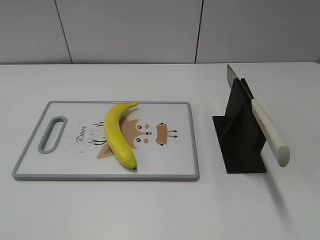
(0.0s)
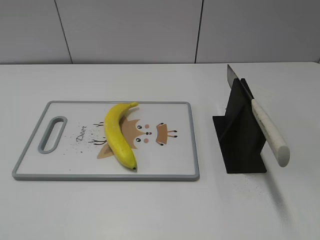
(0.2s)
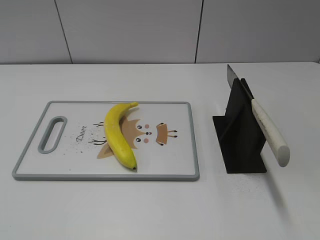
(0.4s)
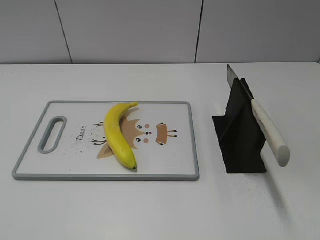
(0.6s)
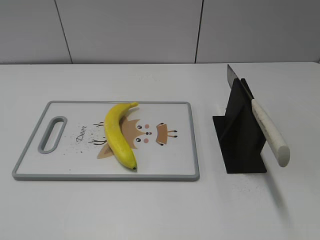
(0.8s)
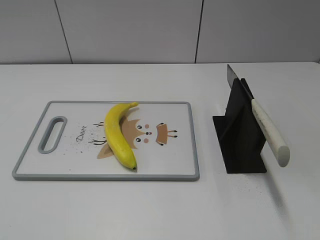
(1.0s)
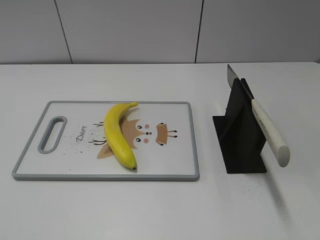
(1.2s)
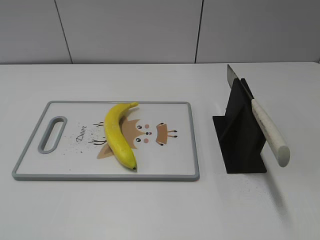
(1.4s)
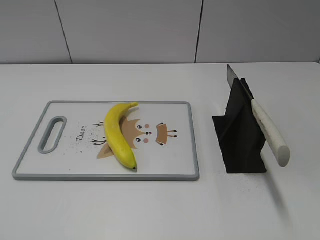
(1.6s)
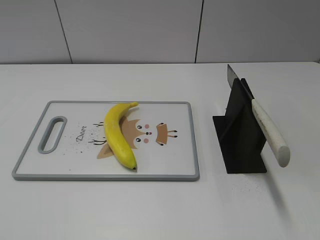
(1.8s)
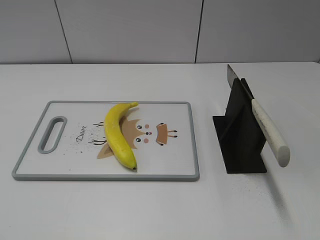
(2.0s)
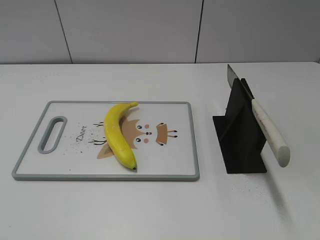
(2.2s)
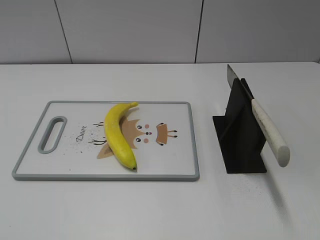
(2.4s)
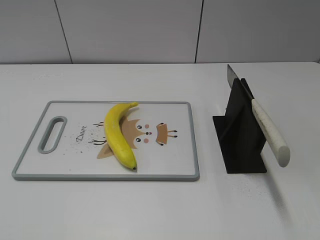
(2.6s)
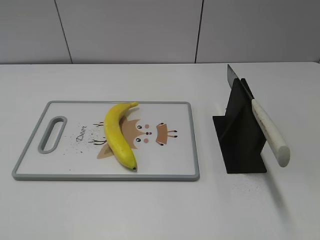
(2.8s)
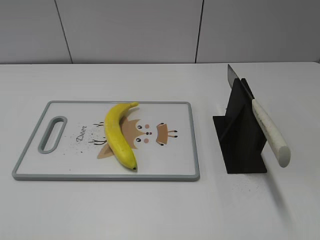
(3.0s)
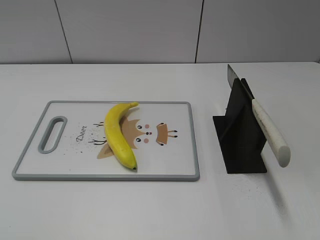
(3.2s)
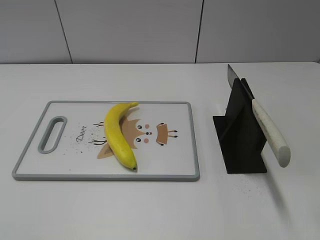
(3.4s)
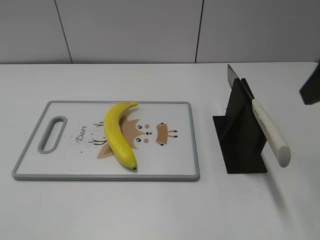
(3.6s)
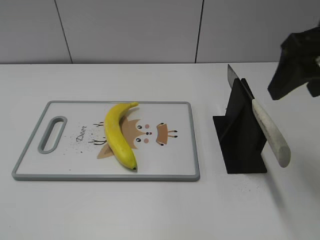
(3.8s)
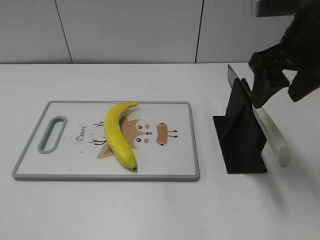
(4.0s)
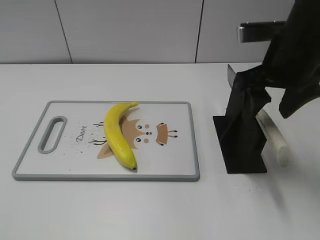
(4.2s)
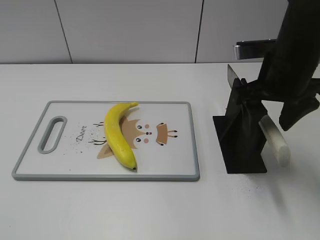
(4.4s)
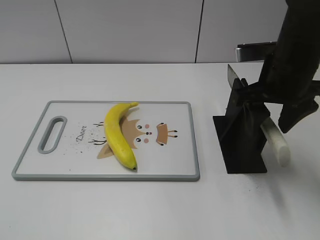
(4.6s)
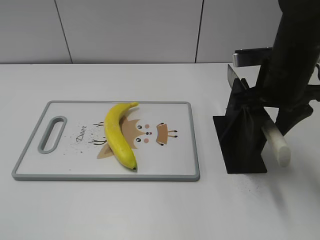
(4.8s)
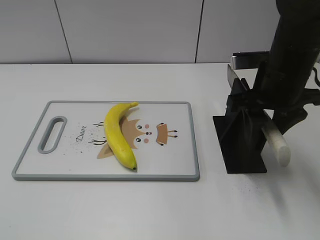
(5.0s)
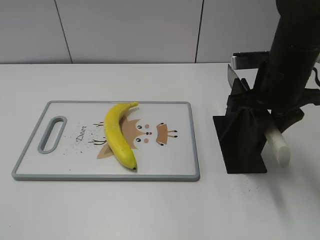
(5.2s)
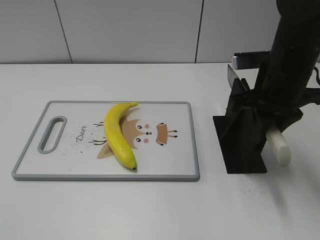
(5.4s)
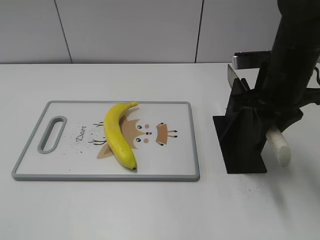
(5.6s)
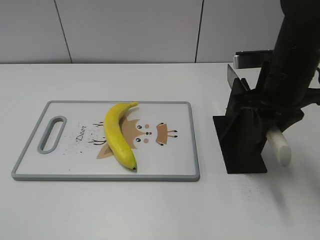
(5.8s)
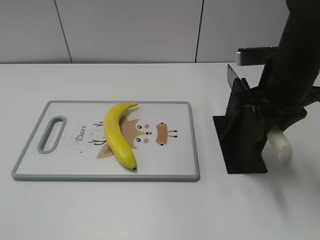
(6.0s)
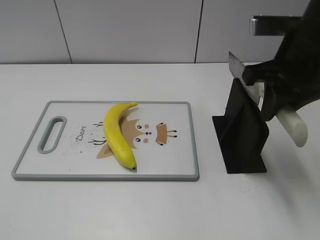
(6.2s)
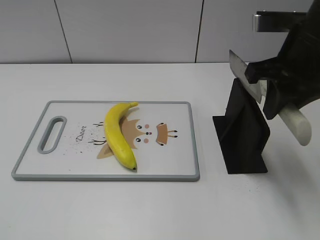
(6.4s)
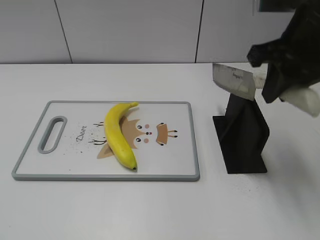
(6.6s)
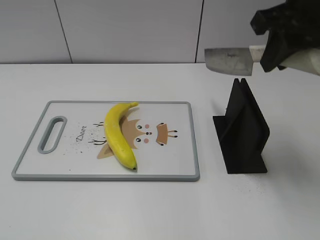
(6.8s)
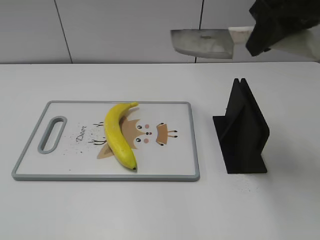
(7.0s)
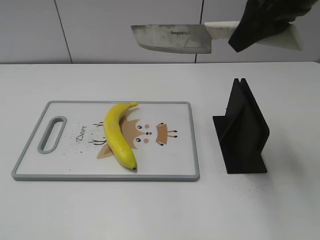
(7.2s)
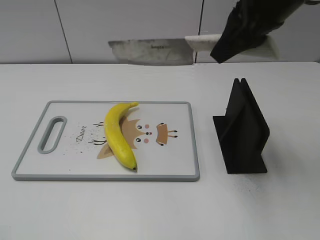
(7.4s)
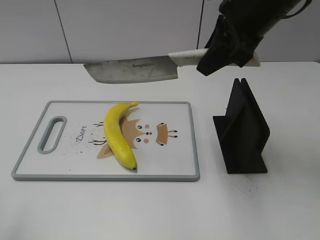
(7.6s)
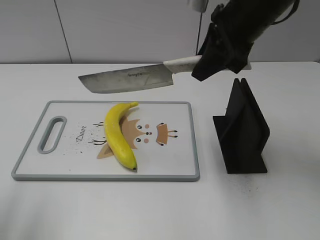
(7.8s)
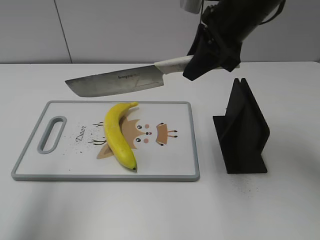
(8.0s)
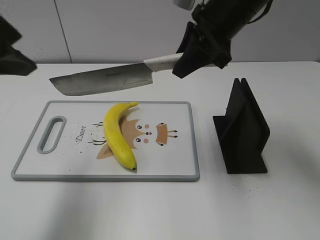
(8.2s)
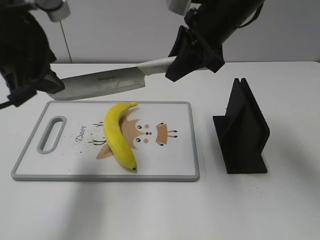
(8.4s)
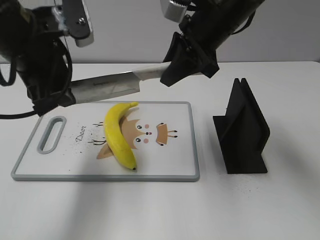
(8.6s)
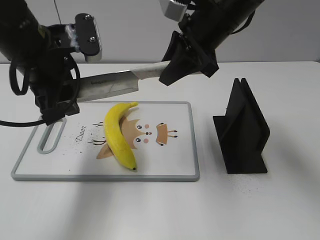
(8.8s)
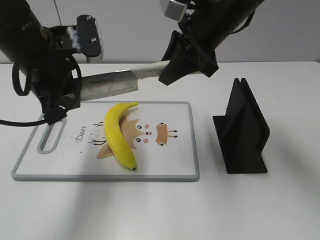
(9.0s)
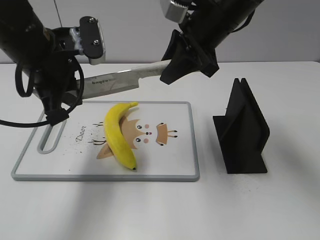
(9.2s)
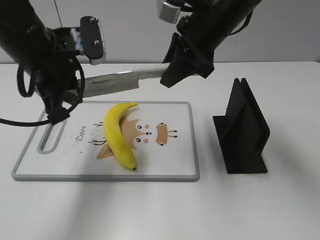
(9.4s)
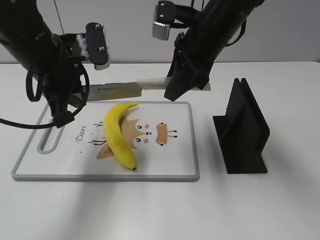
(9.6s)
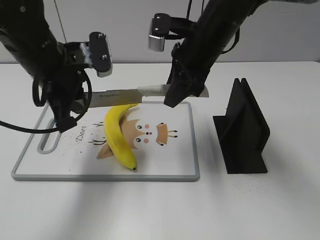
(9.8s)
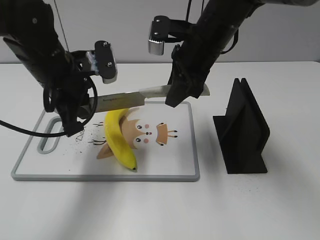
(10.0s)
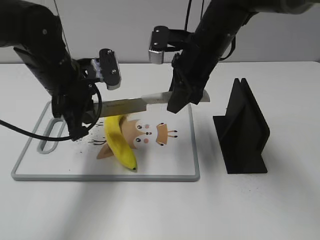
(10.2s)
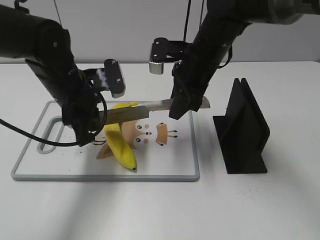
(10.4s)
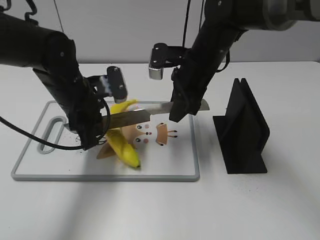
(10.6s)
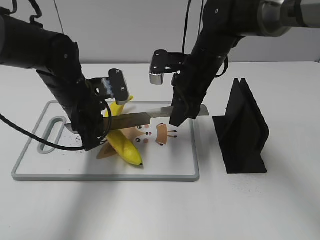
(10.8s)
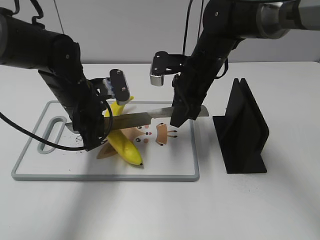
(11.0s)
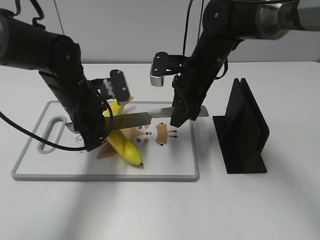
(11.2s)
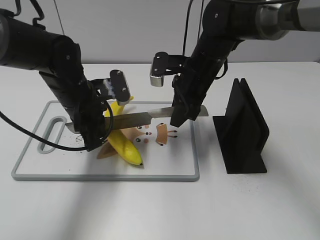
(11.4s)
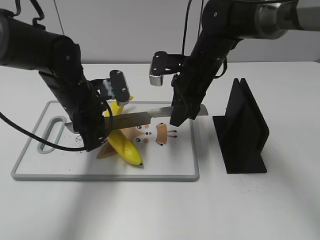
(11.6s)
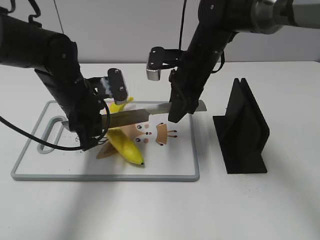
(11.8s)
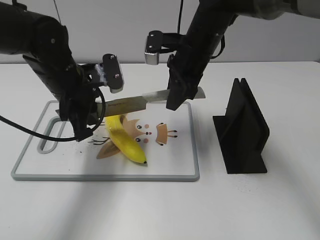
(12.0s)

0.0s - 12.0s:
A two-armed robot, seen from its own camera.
Task of the whole recording: cut plastic banana.
Step, 0.0s - 6.6s: Grab the knife handle with your right hand.
Step, 6.8s - 11.2s: Lift the knife with your right hand.
3.0s - 4.4s: The right gripper is displaced forward, downward and to the left by approximately 25 cm.
4.4s - 6.0s: The right gripper closes its fingers.
6.0s - 7.6s: The left gripper travels forward and upward by roughly 10 cm. The right gripper heads upward, covering about 10 cm.
7.6s - 9.0s: The right gripper moves approximately 10 cm. Meanwhile the left gripper is displaced forward and to the right by about 25 cm, and closes up.
9.0s - 10.4s: Both grippers travel together downward, about 10 cm. The left gripper closes up.
10.4s - 12.0s: The grippers move only a little.

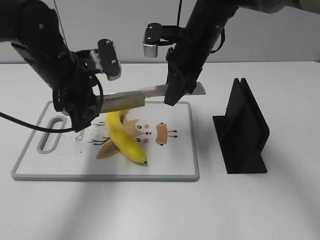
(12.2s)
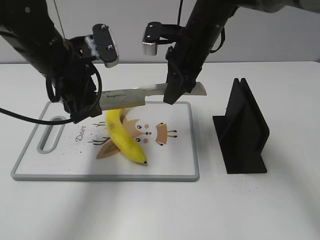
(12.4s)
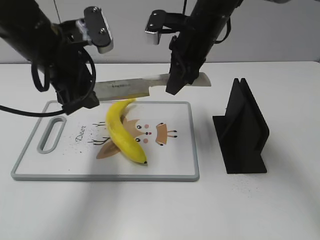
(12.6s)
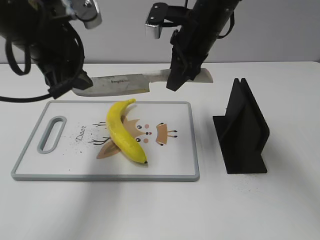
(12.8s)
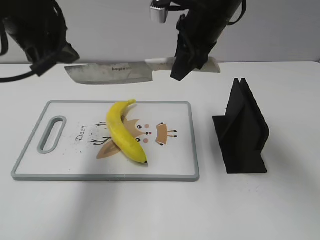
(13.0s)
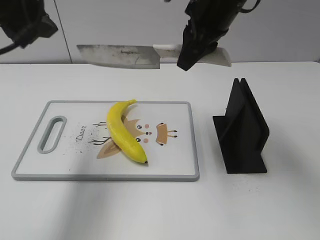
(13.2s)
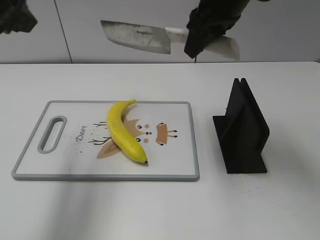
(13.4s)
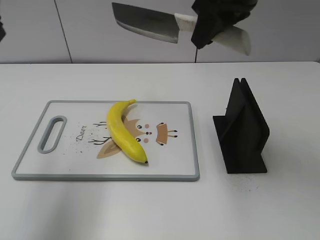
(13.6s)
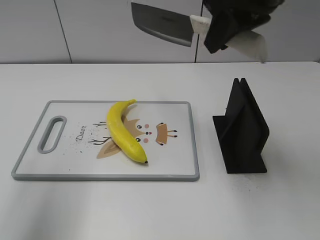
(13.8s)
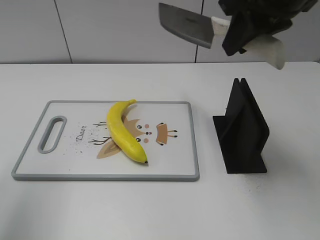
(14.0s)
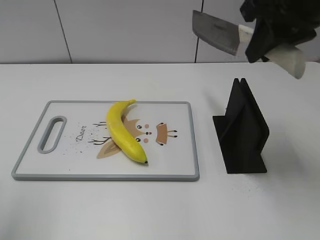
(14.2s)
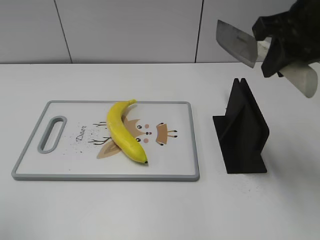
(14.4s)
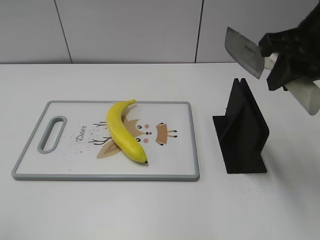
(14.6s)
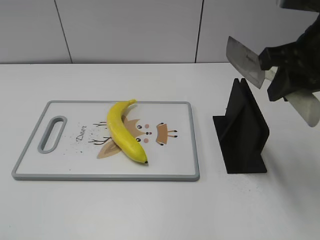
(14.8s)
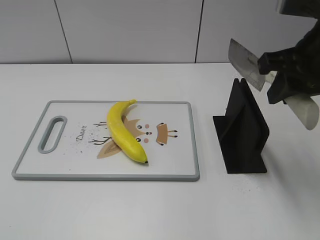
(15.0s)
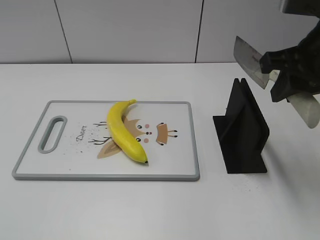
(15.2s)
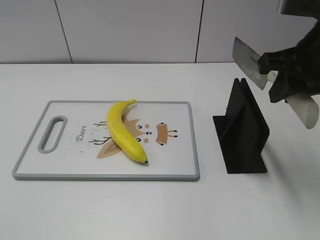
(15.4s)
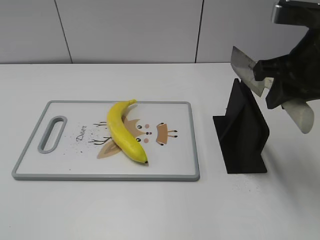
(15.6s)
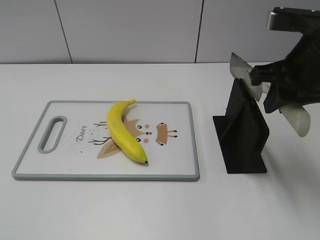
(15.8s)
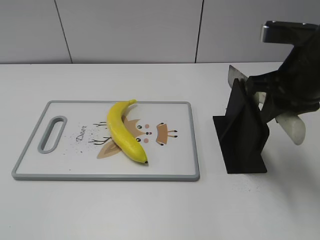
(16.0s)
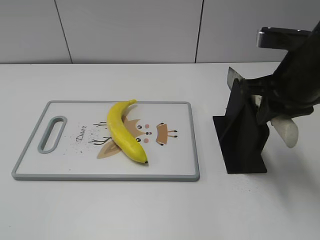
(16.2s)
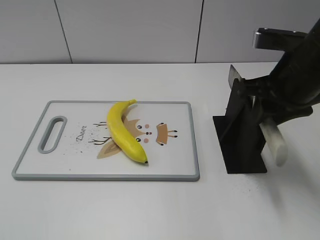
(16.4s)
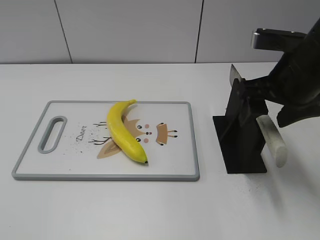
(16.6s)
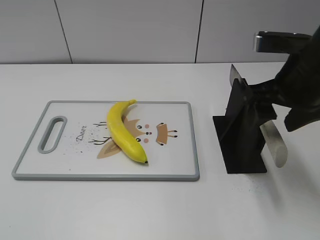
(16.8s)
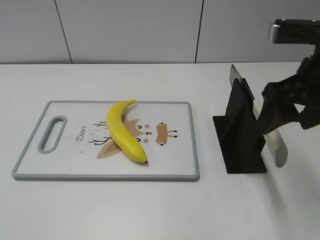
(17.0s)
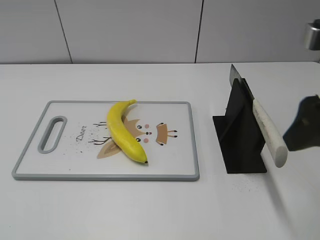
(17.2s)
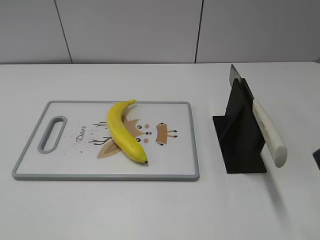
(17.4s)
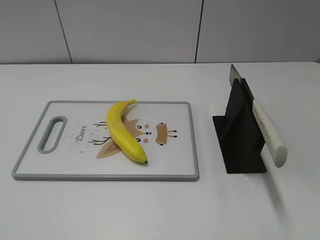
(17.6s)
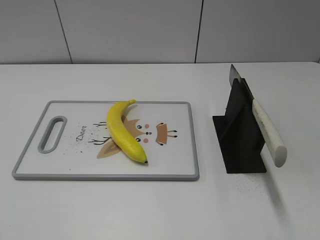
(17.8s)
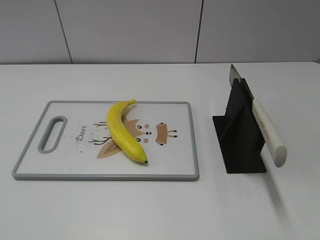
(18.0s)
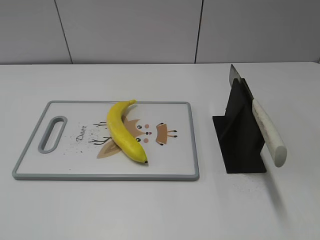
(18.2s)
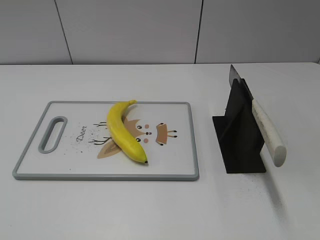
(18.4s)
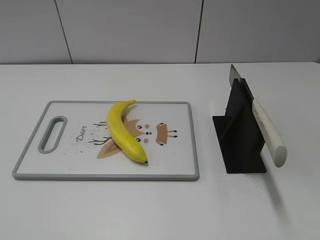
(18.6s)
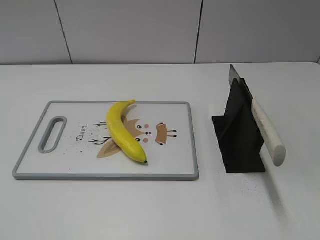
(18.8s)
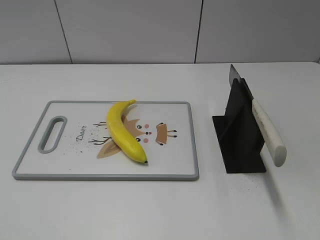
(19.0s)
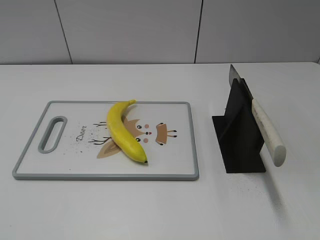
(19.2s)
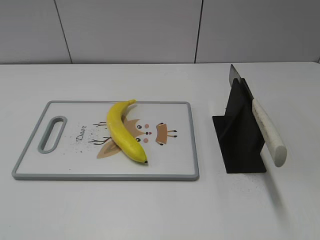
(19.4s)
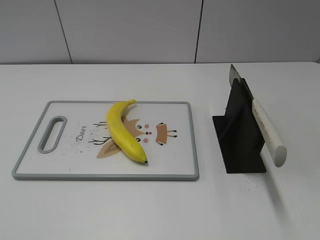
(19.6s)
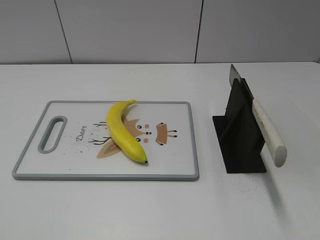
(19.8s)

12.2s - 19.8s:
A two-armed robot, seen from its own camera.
Task of the whole recording: cut plastic banana.
Step, 12.2s - 13.0s: Cut the banana with your right hand.
Step, 13.4s - 15.2s: Lift the knife with your right hand.
Step, 15.4s - 19.8s: Place the knife on the storage rack with your right hand.
12.2s - 13.8s: The left gripper is displaced upward, backward and to the left by roughly 25 cm, and opens its fingers, while the right gripper goes about 20 cm upward and backward.
13.8s - 15.2s: The right gripper heads to the right, downward and backward, covering roughly 10 cm; the left gripper shifts some 25 cm backward and downward.
15.2s - 16.8s: The right gripper opens.
16.8s - 18.2s: The right gripper goes approximately 25 cm backward.

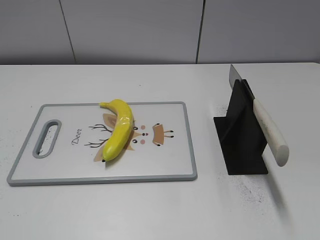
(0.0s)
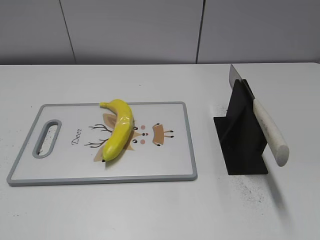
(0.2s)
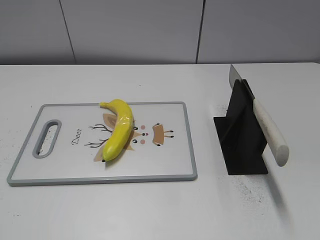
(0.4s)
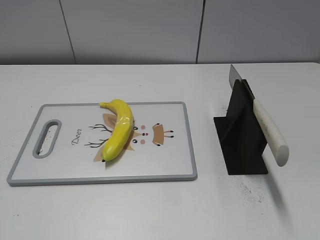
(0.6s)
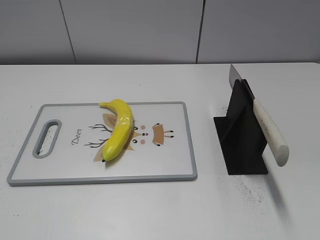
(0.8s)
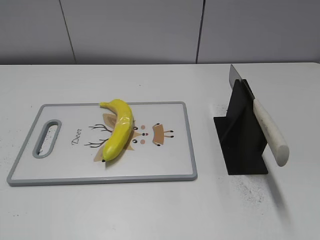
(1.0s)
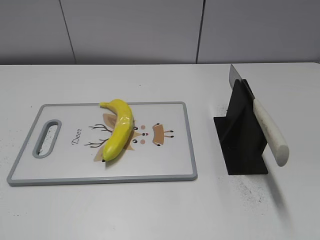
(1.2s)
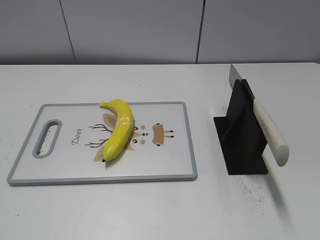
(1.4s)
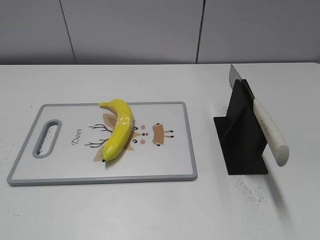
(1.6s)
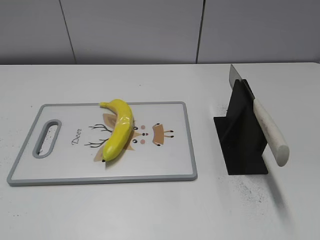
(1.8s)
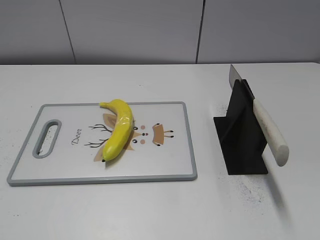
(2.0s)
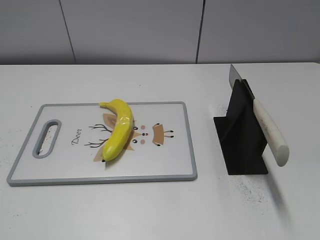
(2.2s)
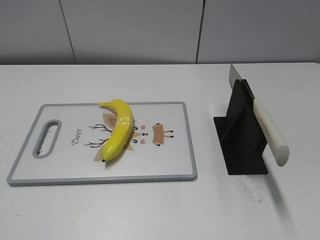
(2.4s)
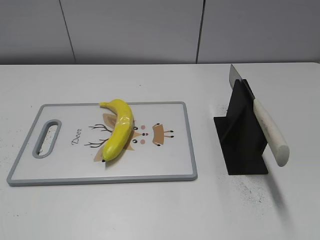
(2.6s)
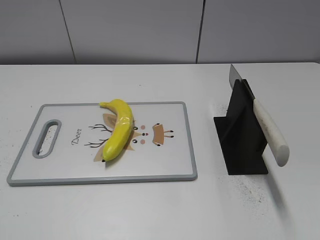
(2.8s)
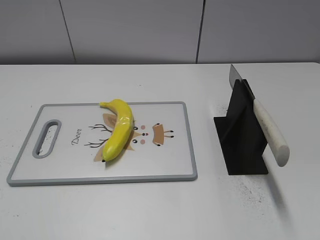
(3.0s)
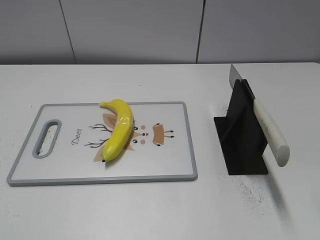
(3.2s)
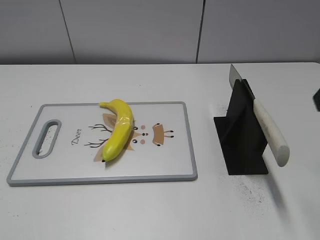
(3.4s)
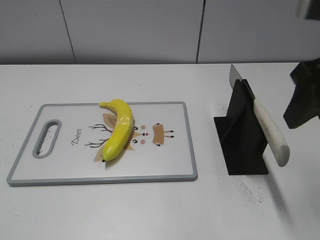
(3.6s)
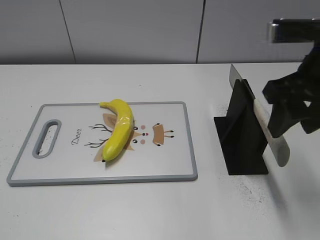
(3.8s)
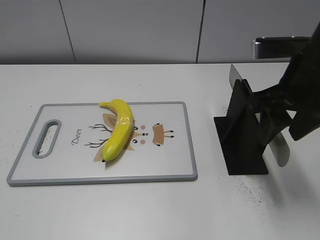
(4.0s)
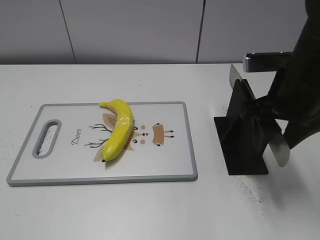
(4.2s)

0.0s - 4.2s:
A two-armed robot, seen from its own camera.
Task of the whole recording: cut plastic banana.
2.8s - 4.2s: The right gripper travels forward, downward and to the left by approximately 25 cm.
